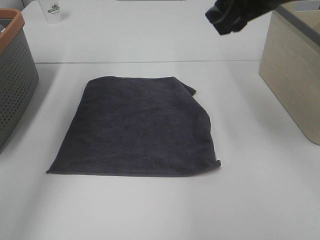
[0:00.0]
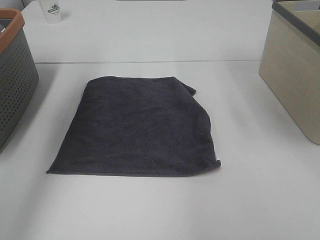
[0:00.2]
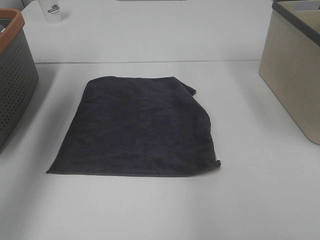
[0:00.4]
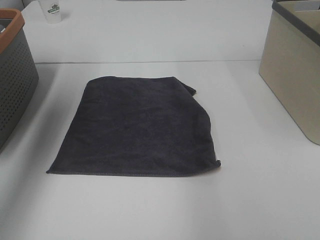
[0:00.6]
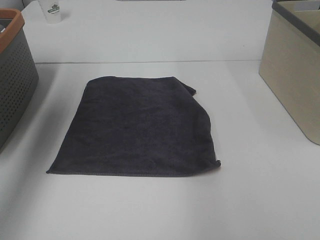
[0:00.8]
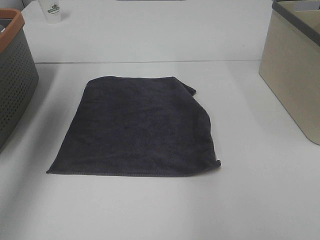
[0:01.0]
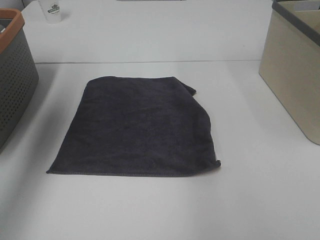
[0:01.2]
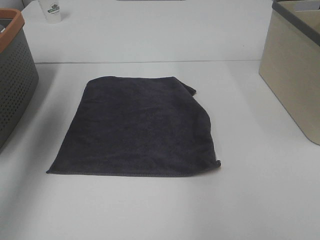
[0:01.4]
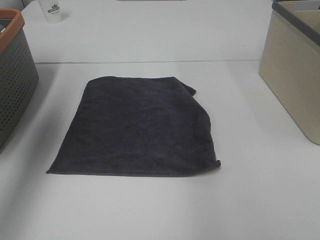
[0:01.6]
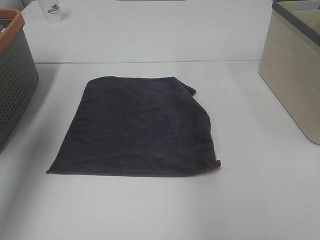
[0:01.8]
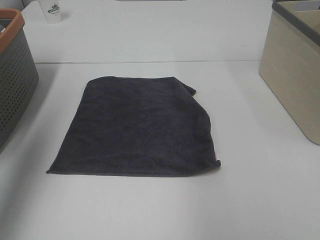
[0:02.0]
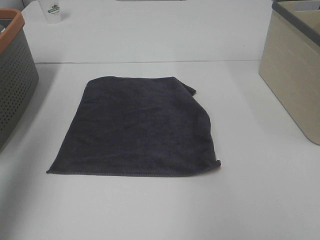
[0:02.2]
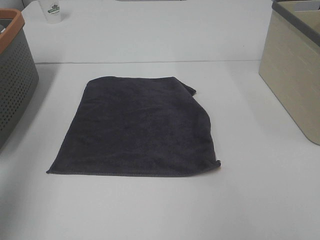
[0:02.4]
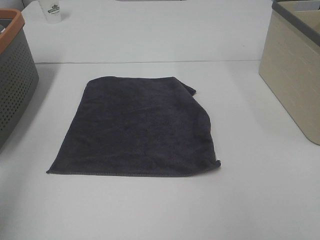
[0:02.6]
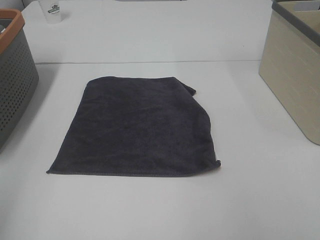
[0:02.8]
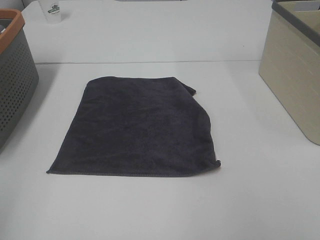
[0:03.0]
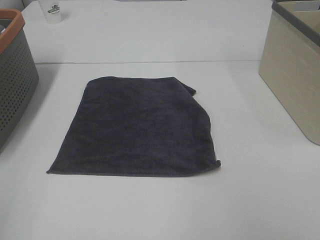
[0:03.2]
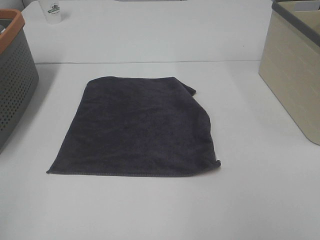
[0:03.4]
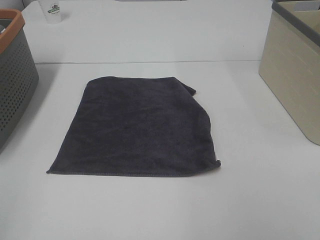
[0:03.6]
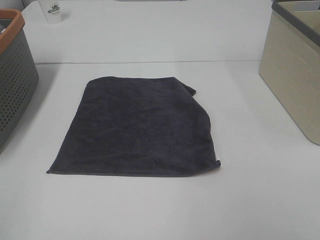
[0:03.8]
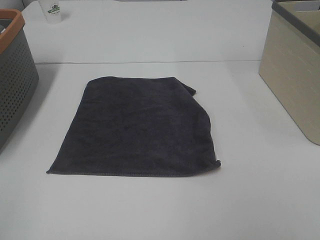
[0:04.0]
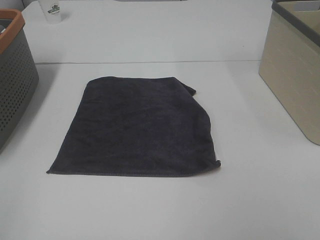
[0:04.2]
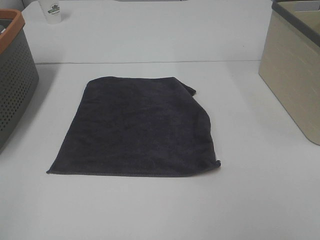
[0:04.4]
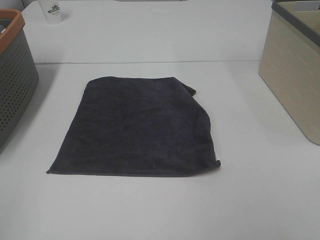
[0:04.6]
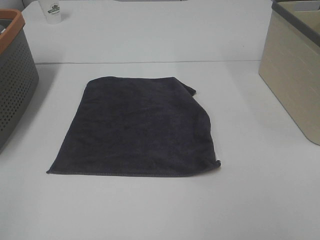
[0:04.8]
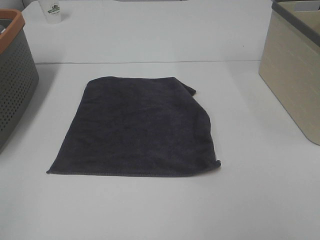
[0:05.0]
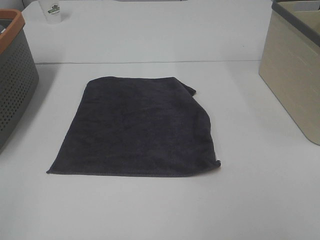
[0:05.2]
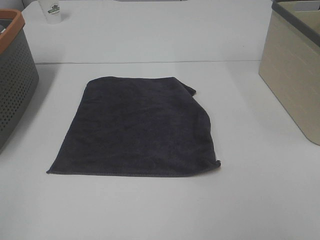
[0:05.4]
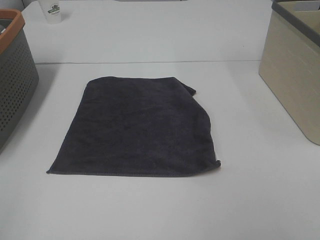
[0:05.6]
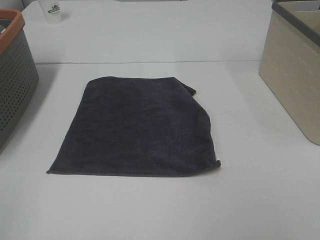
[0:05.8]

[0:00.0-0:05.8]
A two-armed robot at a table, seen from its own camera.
Task of the whole recording: Remove the towel and place it.
0:00.0 to 0:01.4: The right gripper heads to the right and upward, covering approximately 15 cm; the left gripper shifts roughly 5 cm to the left.
0:01.4 to 0:02.8: The left gripper shifts roughly 25 cm backward.
0:04.4 to 0:05.8: Neither gripper changes place.

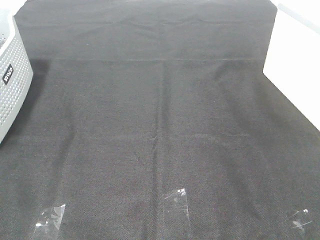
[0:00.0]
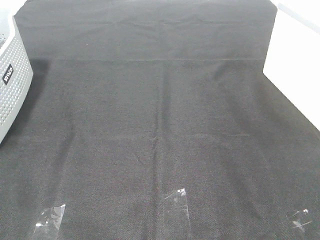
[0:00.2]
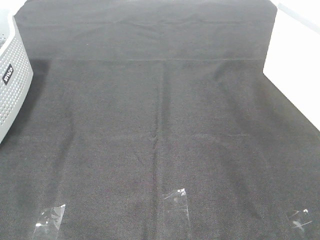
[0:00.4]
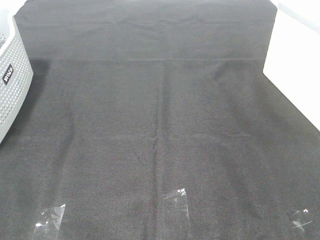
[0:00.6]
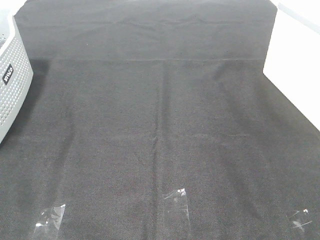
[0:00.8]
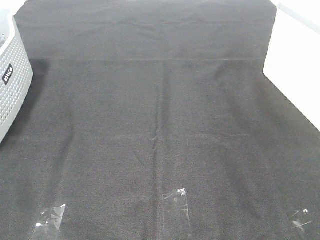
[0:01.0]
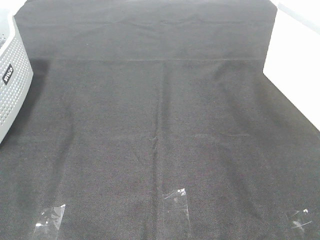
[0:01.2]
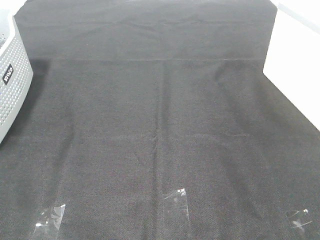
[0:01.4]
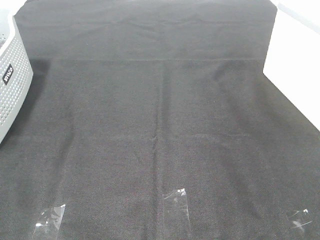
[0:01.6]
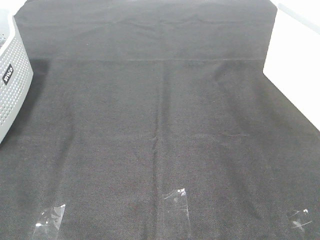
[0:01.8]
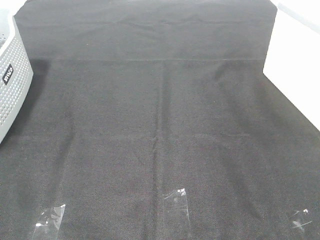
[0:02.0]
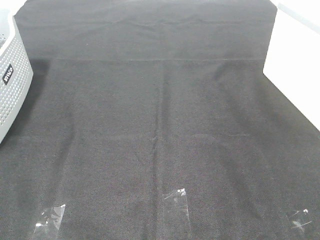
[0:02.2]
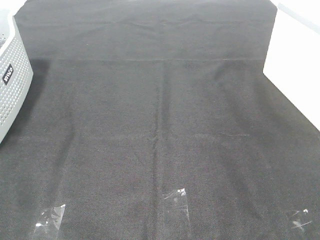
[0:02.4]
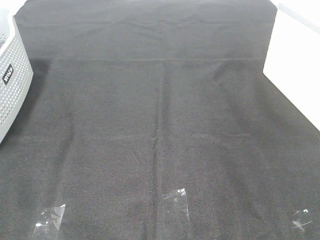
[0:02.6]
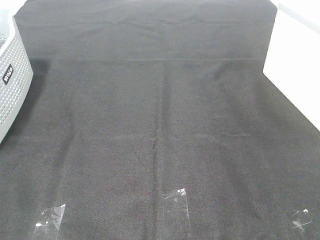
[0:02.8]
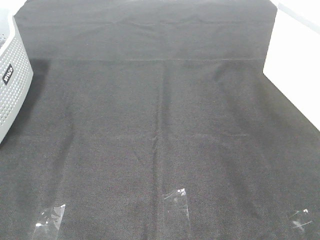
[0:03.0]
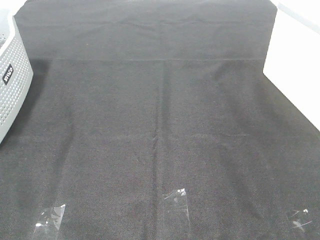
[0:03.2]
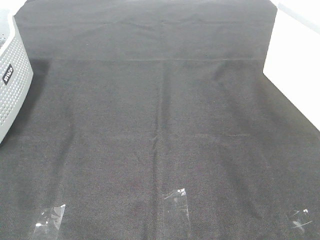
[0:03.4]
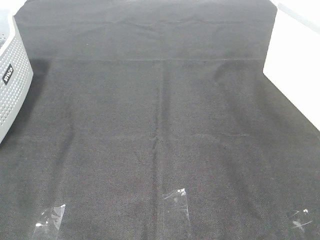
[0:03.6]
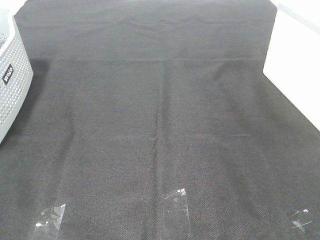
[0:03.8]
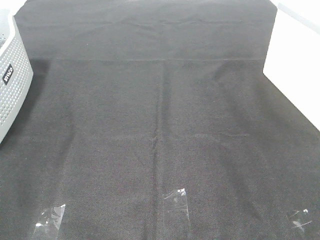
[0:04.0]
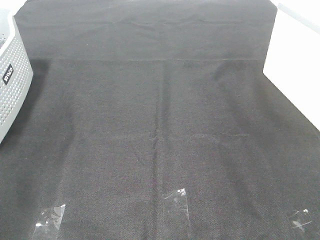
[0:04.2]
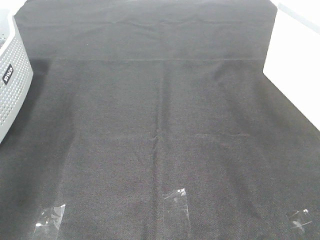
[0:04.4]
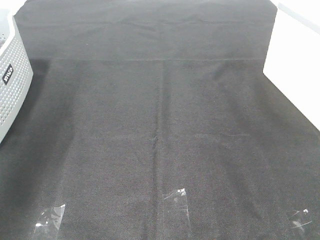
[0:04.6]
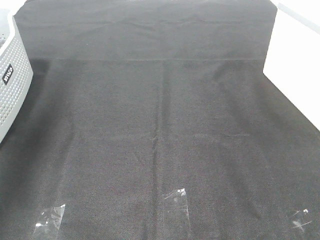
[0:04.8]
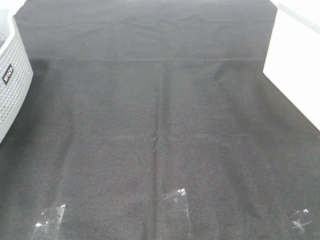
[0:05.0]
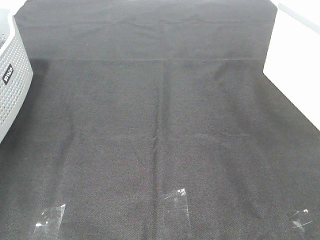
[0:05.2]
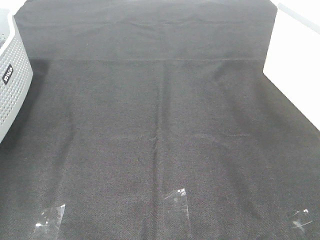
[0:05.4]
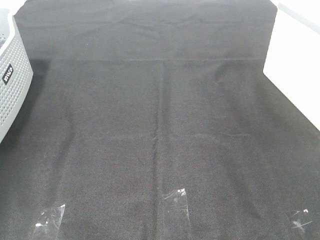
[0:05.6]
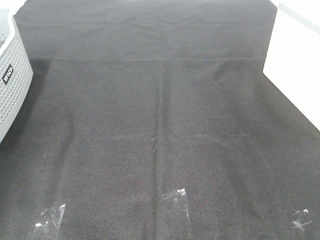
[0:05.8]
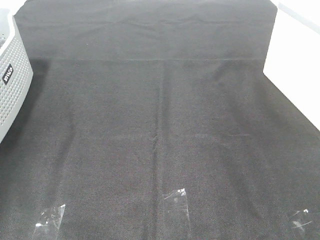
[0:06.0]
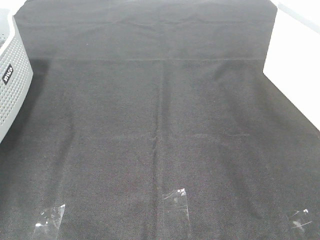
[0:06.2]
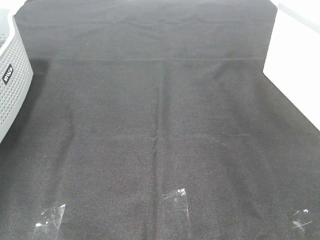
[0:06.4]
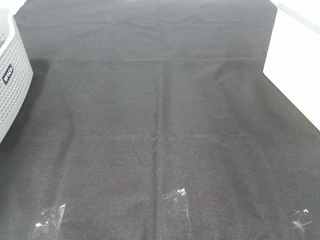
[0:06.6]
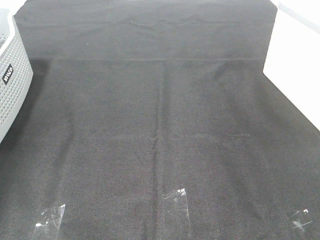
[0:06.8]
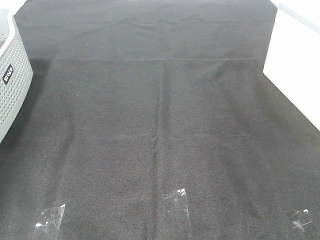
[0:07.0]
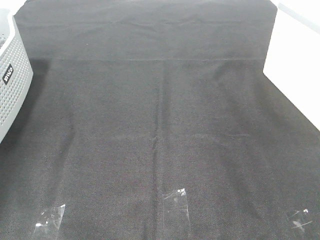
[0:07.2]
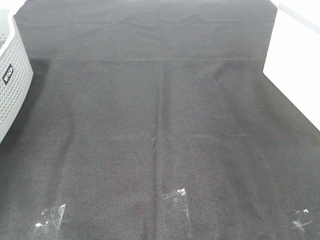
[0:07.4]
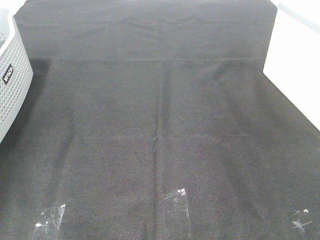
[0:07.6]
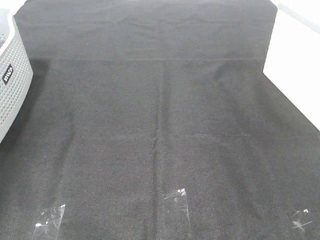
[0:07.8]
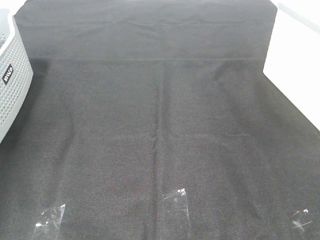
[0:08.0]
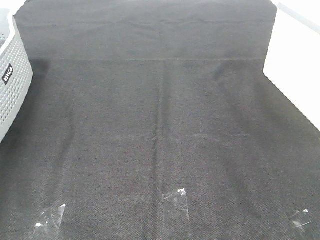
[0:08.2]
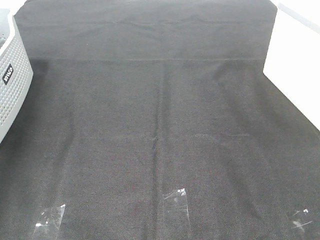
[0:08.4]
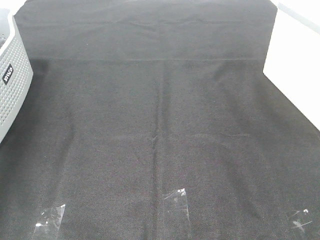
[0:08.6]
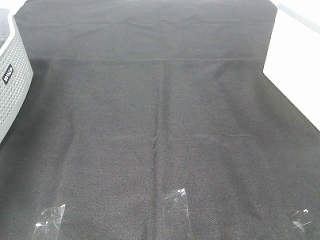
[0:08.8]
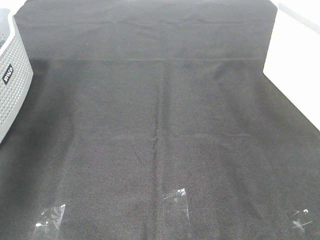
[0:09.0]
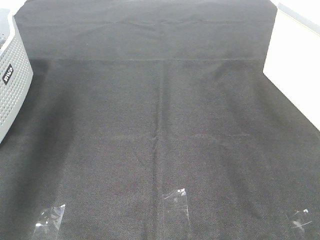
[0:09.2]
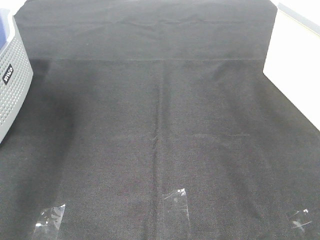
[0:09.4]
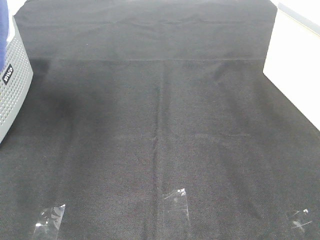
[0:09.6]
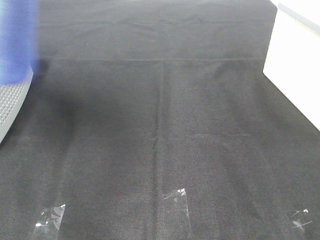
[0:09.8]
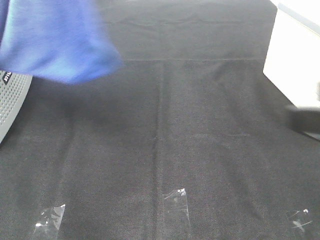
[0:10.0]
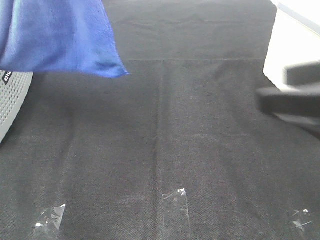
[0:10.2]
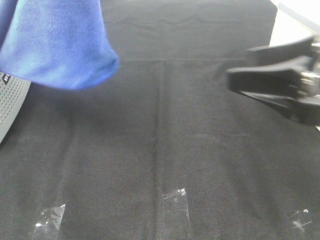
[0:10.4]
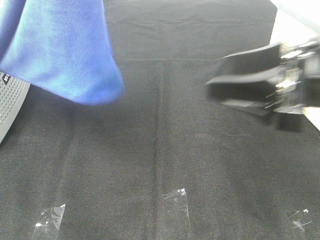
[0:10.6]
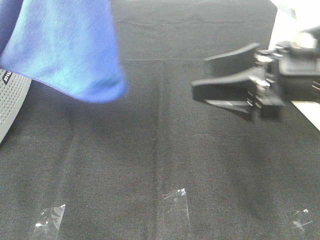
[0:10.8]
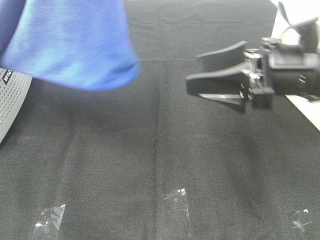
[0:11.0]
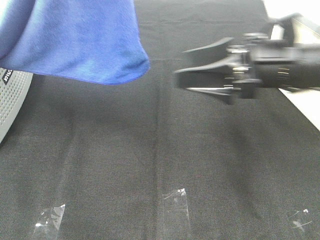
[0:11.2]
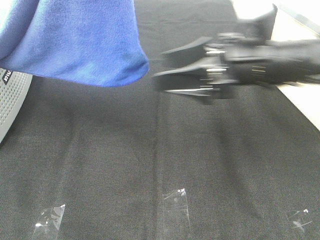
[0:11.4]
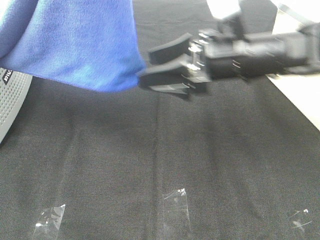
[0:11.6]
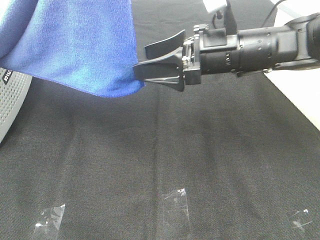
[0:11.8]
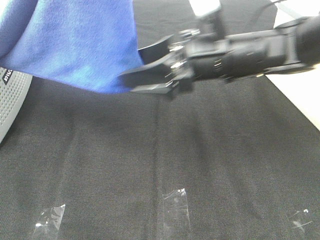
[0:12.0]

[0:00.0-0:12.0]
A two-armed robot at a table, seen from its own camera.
Task of the whole recording: Remove the towel and place it.
0:00.0 to 0:03.0: Both grippers stay put.
0:03.0 to 0:04.4: The left gripper is displaced forward and upward by about 25 cm.
0:04.4 to 0:06.0: The left gripper shifts roughly 35 cm forward, downward and to the left.
0:07.6 to 0:09.0: The left gripper heads upward and backward, covering approximately 35 cm.
0:09.0 to 0:10.4: The right gripper is displaced forward by about 20 cm, while the left gripper heads to the right and backward, covering some 20 cm.
0:10.4 to 0:12.0: The right gripper travels to the left, forward and downward by approximately 20 cm.

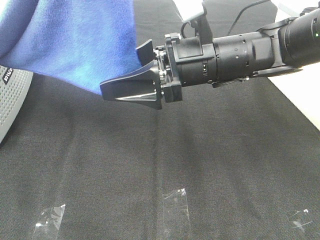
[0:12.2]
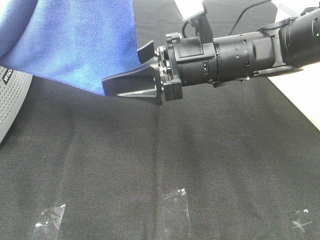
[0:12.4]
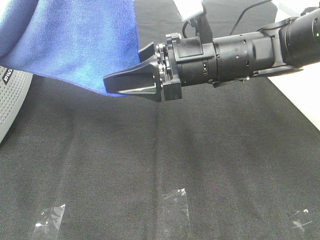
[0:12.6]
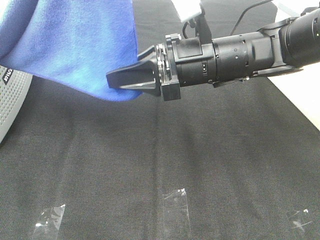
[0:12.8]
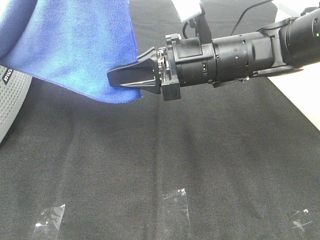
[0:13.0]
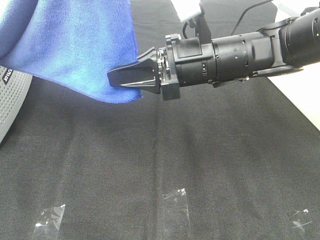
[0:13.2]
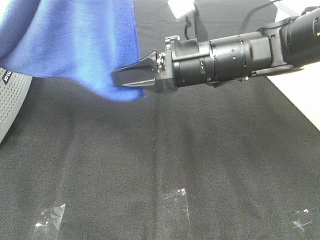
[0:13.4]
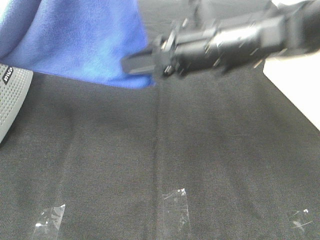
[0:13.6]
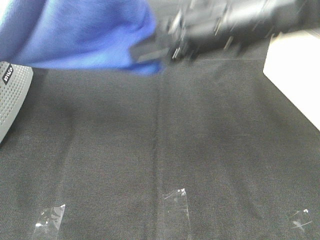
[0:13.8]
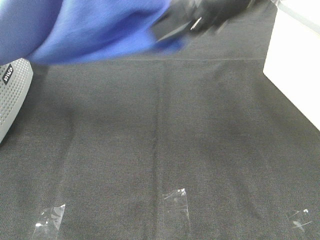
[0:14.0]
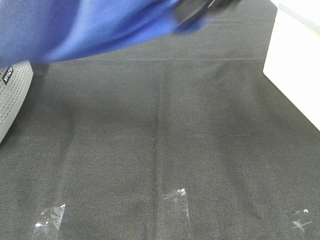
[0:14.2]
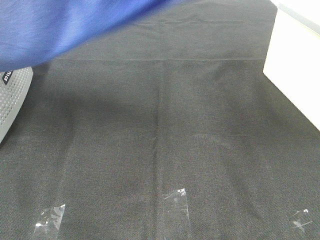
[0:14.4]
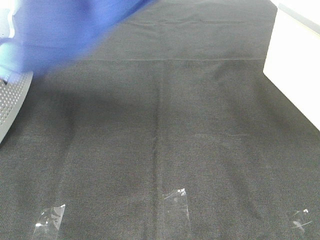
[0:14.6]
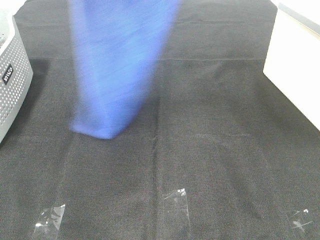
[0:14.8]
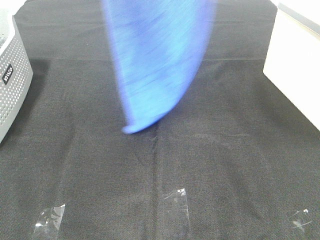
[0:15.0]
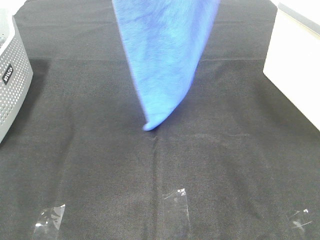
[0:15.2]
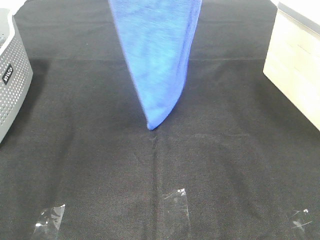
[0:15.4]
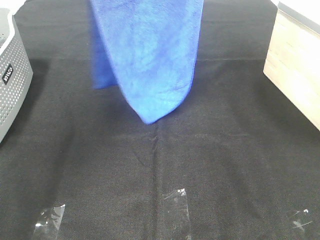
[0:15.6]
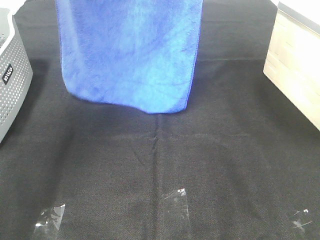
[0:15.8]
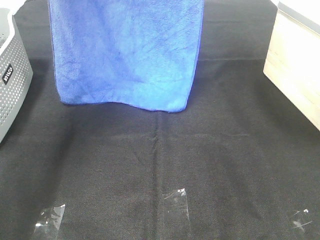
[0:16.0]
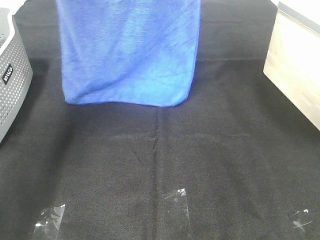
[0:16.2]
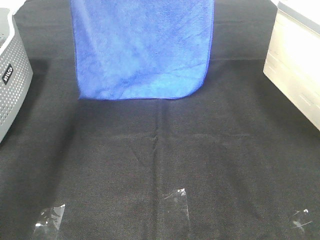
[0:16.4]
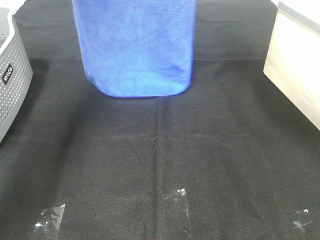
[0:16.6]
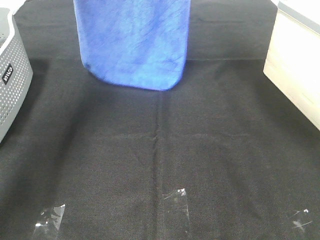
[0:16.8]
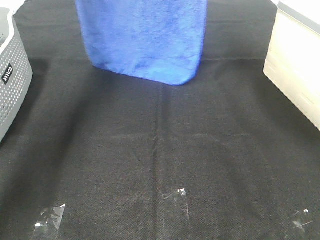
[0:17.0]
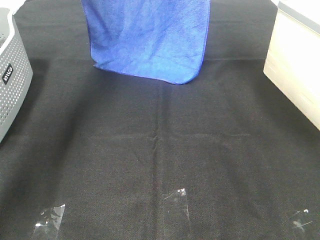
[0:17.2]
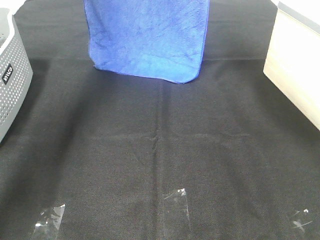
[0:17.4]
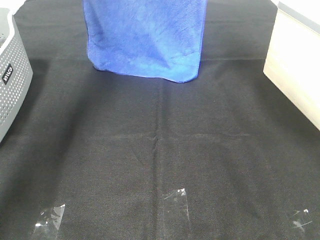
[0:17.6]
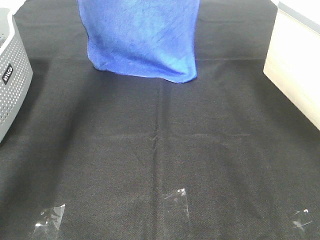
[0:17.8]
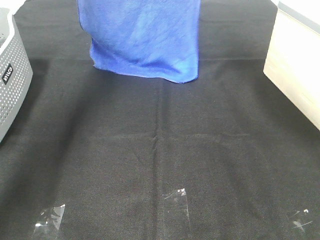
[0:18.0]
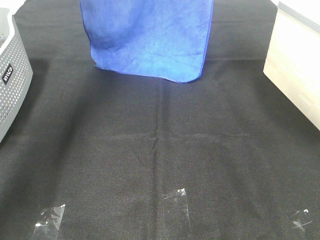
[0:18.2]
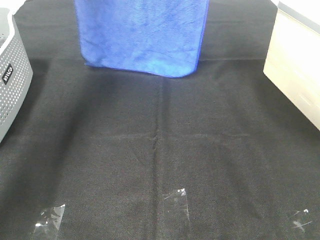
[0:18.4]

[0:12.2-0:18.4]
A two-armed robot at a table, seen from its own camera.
Task of the whole recording: Remove the towel and place it.
0:12.2 to 0:13.8: The right gripper travels upward by about 5 cm, and closes.
0:13.8 to 0:15.4: The left gripper heads forward and to the left, covering about 15 cm. Meanwhile the right gripper shifts some 20 cm upward.
0:15.4 to 0:16.8: Both grippers travel together forward, approximately 10 cm.
0:16.8 to 0:18.4: The grippers stay close to where they were, moving slightly.
